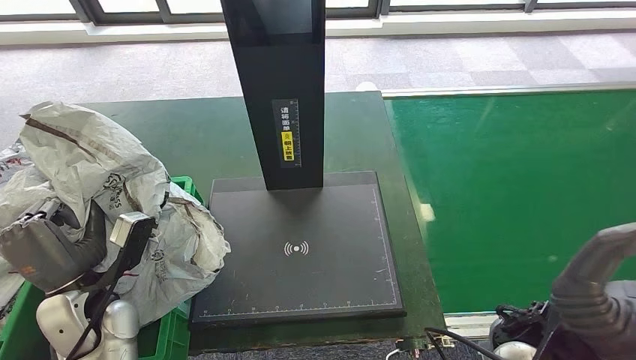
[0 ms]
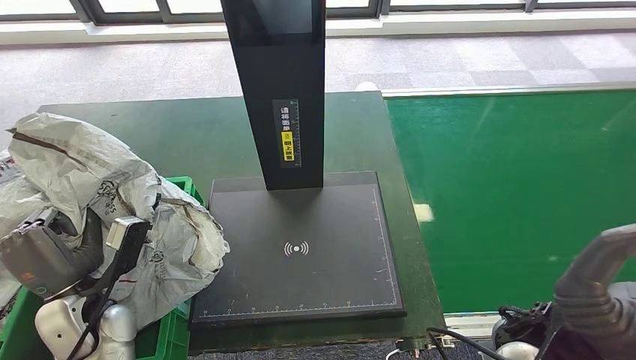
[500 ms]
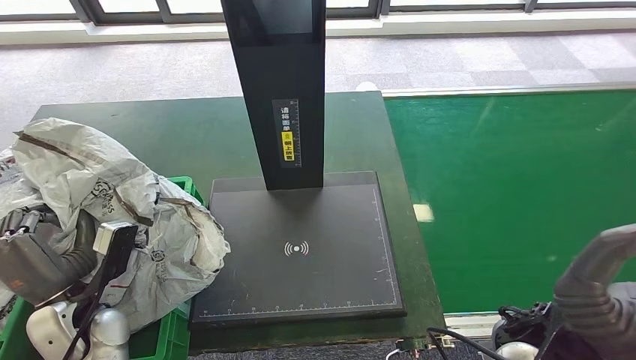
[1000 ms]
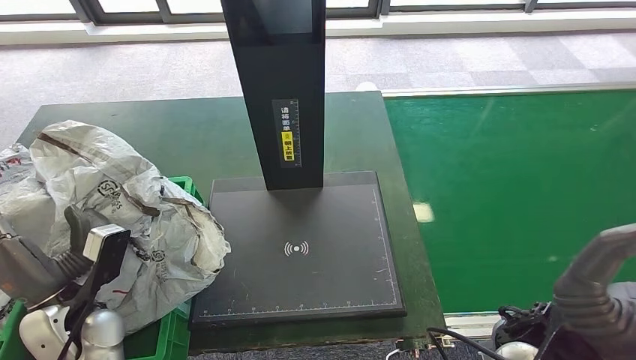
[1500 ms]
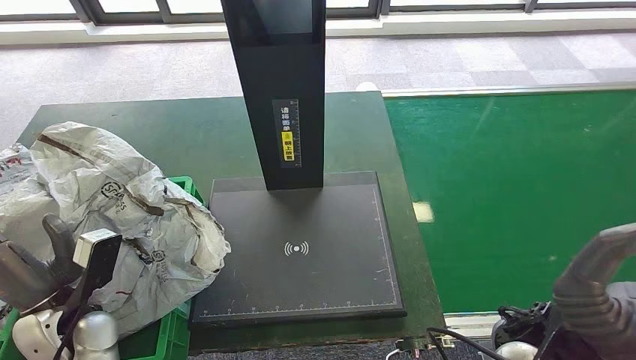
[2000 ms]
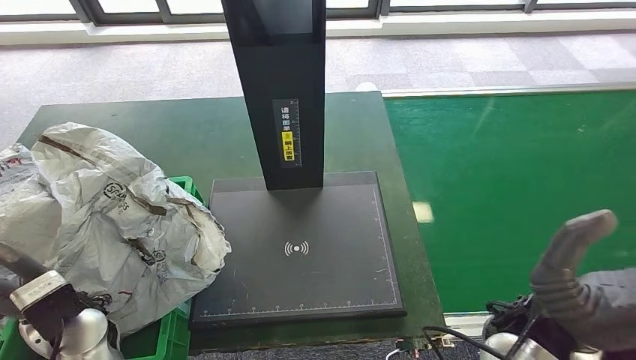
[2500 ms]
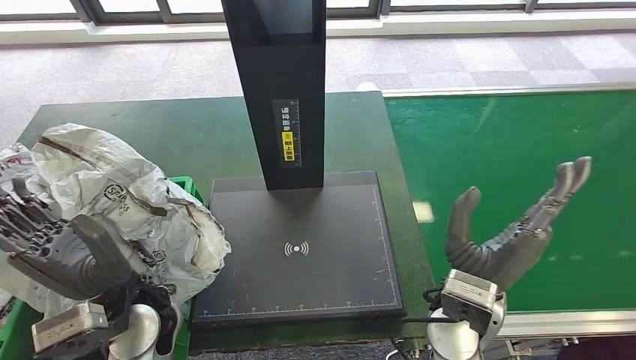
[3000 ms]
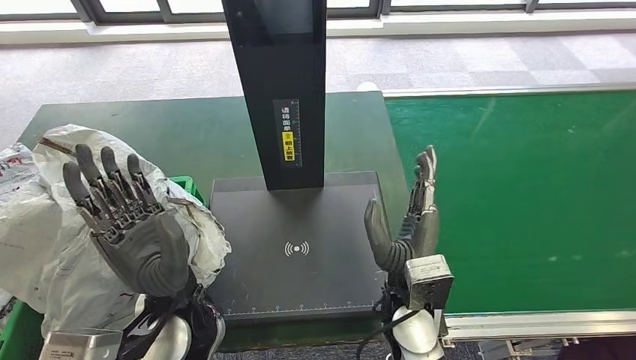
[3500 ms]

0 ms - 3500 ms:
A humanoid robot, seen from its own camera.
Step, 0 ms - 3500 ms: Place the parcel into the delivery box.
0 ms - 2000 ms: The hands stay close to where they were, moving slightly.
2000 ms - 3500 ms: The left hand shifts roughly 20 cm to the right, while the right hand heads downward, to the left and forward, covering roughly 15 cm.
